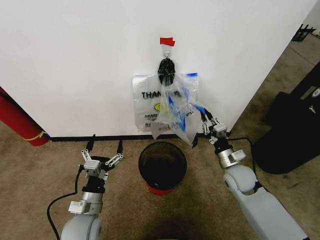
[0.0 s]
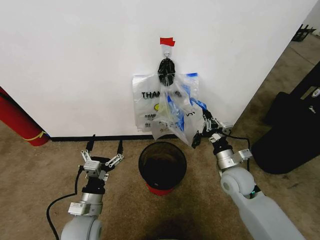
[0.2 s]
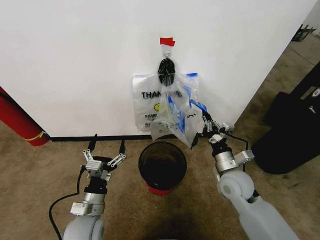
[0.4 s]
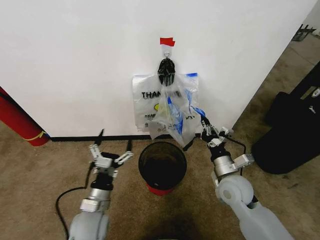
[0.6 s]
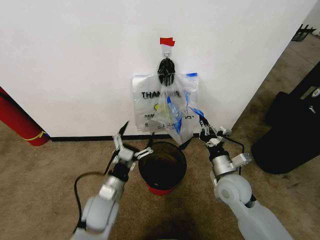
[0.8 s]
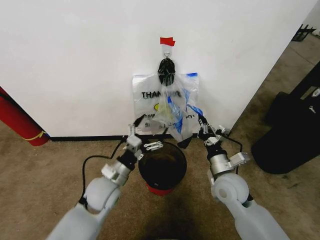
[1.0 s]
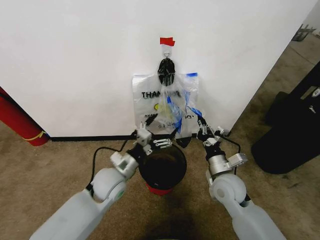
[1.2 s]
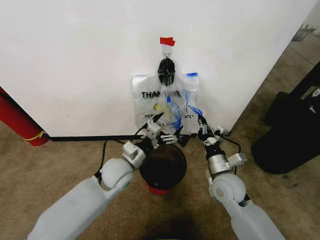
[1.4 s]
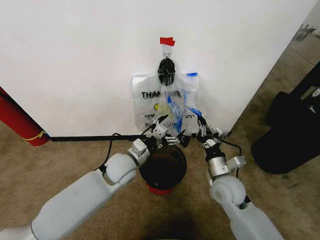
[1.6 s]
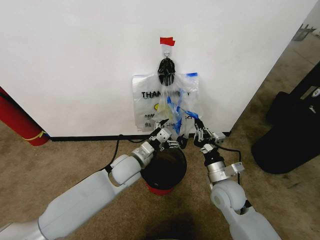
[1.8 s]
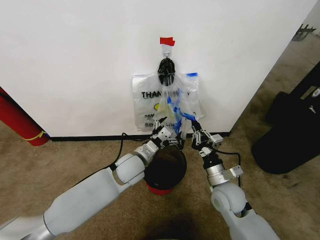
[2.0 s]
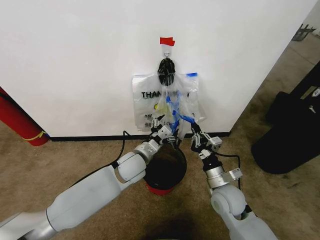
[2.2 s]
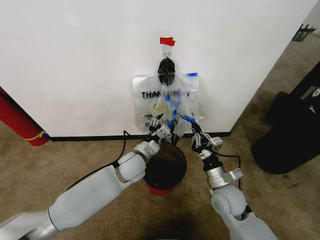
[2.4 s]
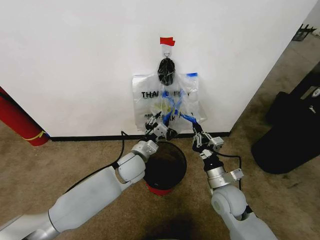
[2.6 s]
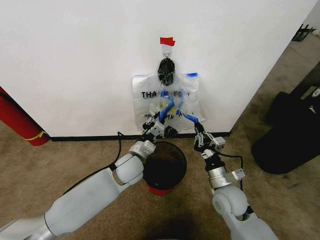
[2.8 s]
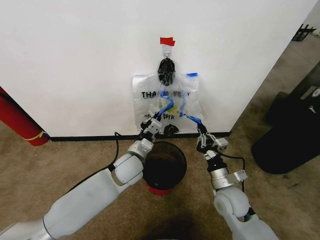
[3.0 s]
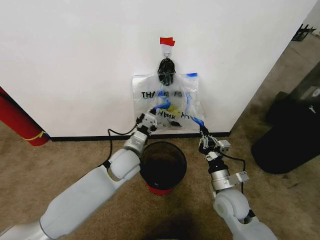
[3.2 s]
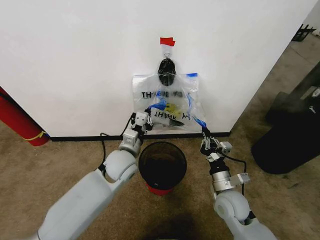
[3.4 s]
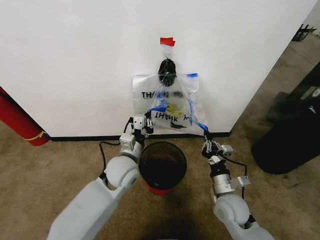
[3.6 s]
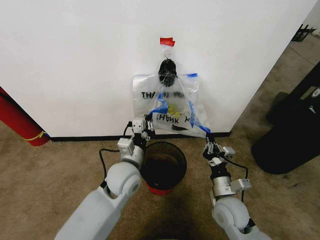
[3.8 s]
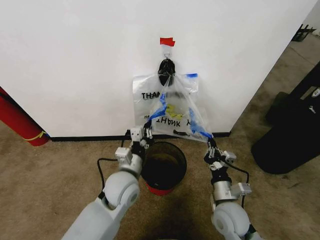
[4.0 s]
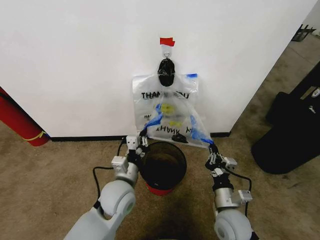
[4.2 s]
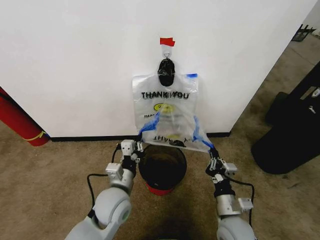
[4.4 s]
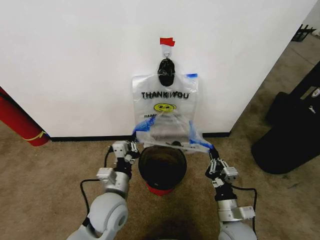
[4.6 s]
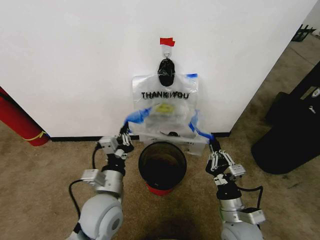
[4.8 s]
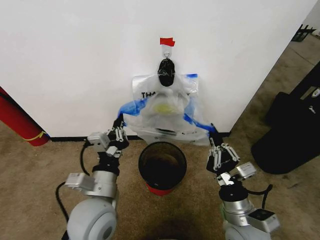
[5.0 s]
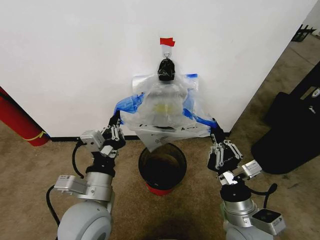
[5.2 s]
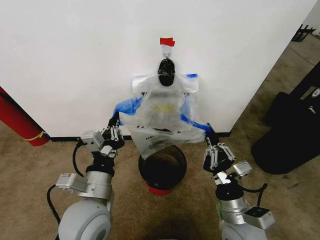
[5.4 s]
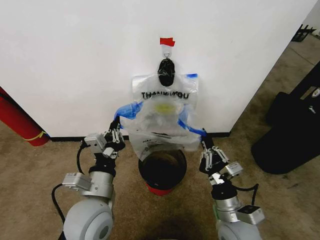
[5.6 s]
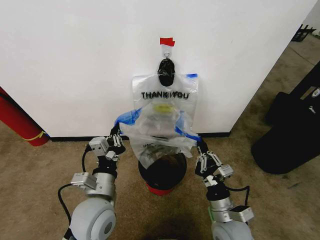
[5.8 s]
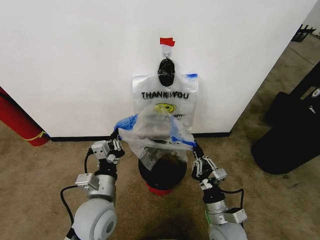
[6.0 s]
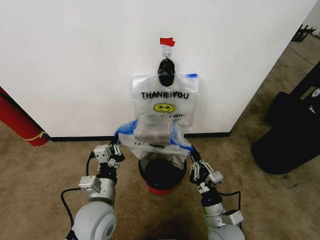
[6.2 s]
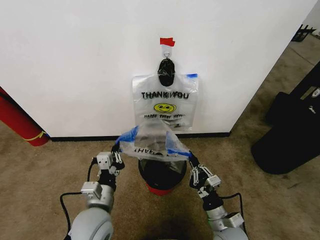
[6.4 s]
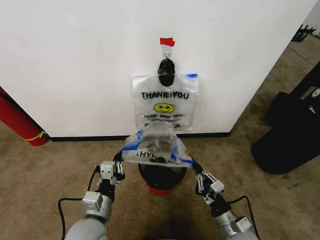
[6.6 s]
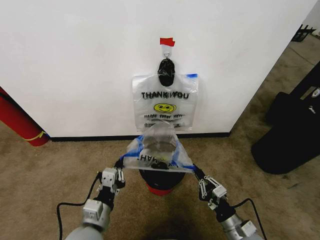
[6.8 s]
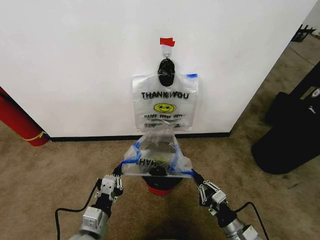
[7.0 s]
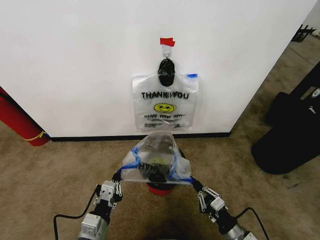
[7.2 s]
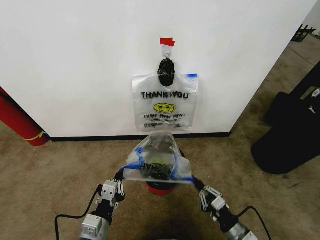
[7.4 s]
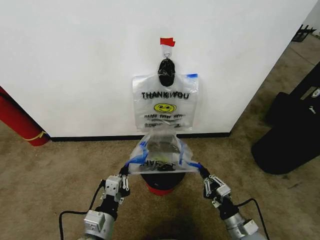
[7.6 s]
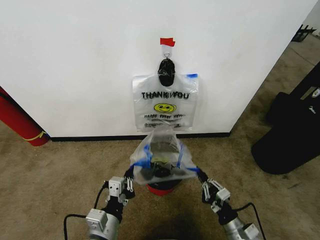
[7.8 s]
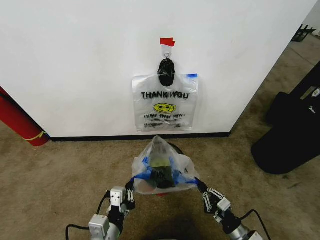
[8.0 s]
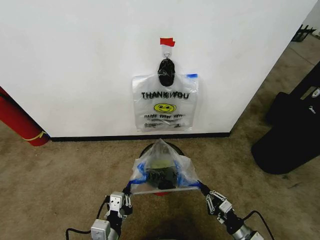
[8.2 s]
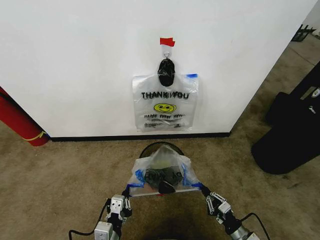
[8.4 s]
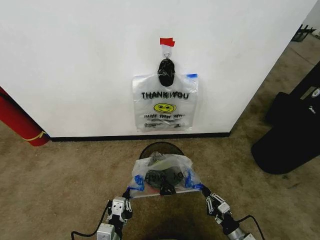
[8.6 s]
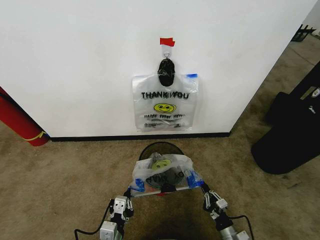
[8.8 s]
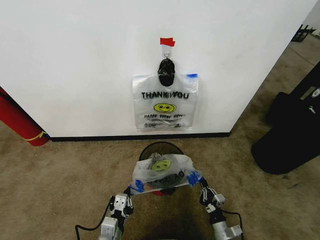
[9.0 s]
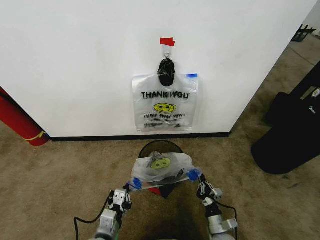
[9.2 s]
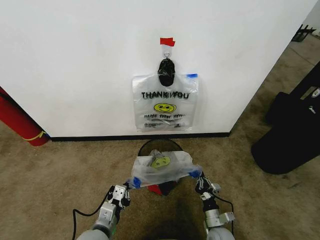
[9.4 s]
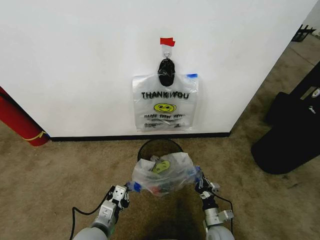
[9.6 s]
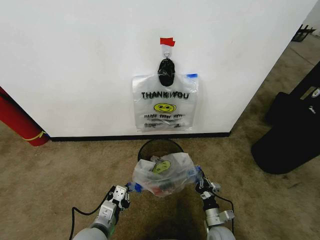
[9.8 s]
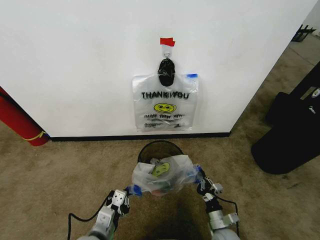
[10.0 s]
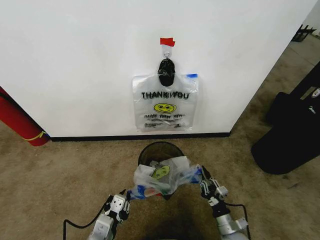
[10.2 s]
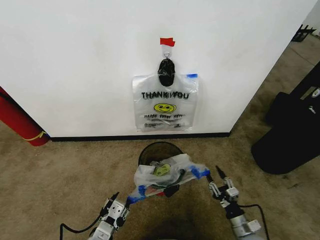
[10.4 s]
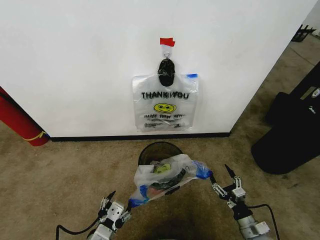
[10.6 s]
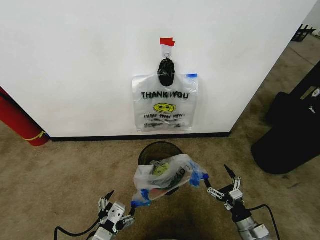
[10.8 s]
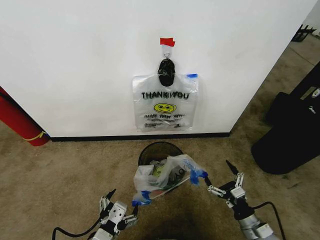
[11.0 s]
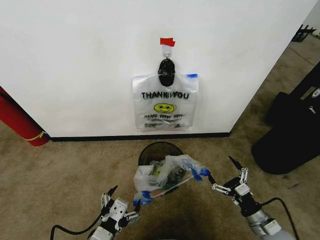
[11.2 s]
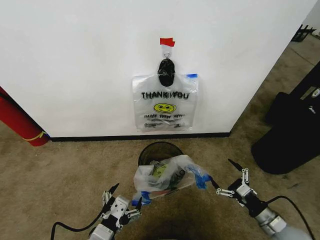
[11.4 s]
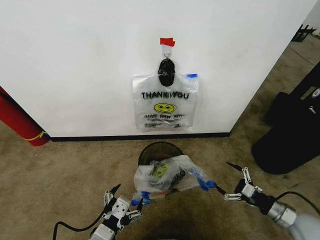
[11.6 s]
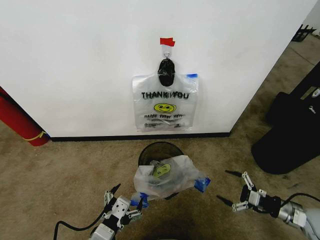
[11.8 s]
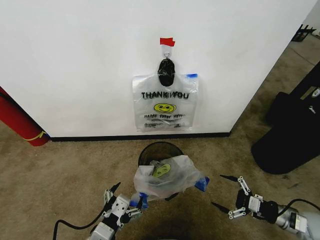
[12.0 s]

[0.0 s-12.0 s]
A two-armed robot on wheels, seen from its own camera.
Task of the whole recording: Pick up the garbage bag from the wall and place it over the trash bin.
0.0 to 1.6 s: The left gripper moves forward, to the right and upward, some 20 cm. Meanwhile the right gripper moves to the left, roughly 5 cm.
1.6 to 3.0 s: The left gripper closes.
3.0 to 4.4 s: The two grippers go roughly 10 cm backward.
4.4 to 6.0 s: The left gripper travels upward and back again, roughly 10 cm each way. The right gripper reaches some 10 cm upward, then returns.
6.0 to 7.6 s: The right gripper is displaced to the right and downward by some 10 cm. The left gripper goes about 10 cm backward and downward.
7.6 to 9.0 s: The right gripper is displaced downward by about 10 cm; the left gripper heads downward, covering about 5 cm.
9.0 to 10.4 s: The left gripper travels upward by roughly 5 cm, and opens; the right gripper is displaced to the right by about 5 cm, and opens.
10.4 to 12.0 s: The right gripper moves to the right and upward, approximately 20 cm, and opens its fingers. The left gripper changes place by some 5 cm, and opens its fingers.

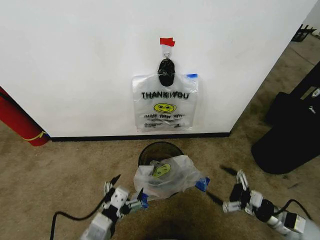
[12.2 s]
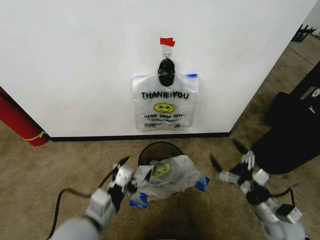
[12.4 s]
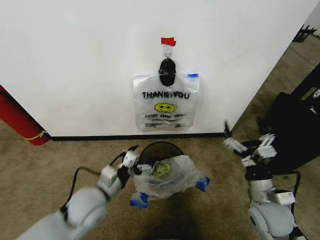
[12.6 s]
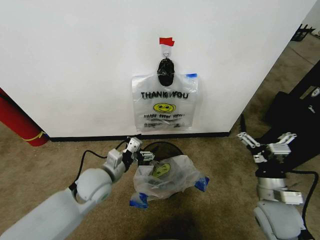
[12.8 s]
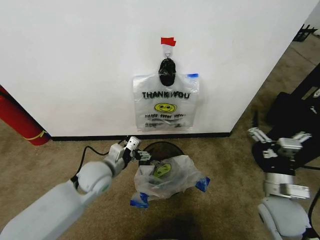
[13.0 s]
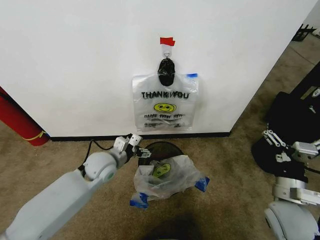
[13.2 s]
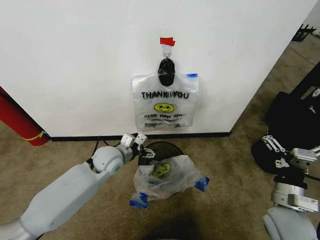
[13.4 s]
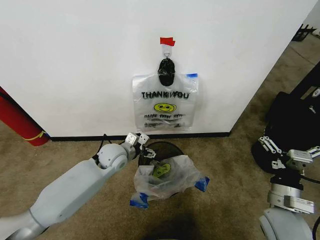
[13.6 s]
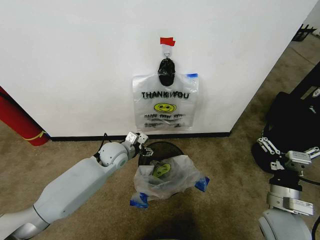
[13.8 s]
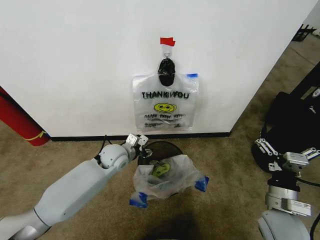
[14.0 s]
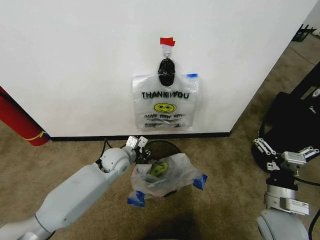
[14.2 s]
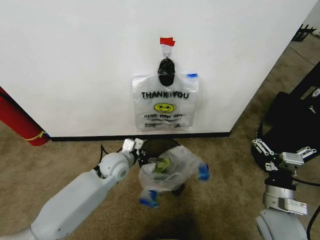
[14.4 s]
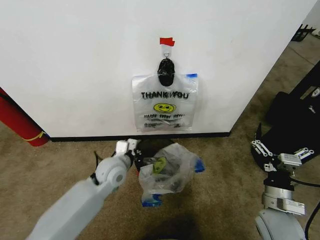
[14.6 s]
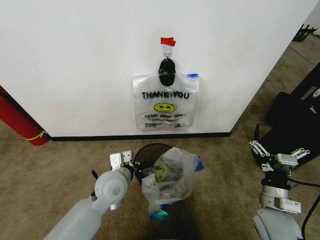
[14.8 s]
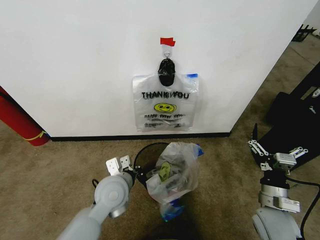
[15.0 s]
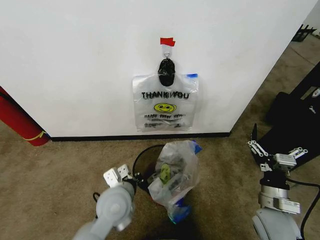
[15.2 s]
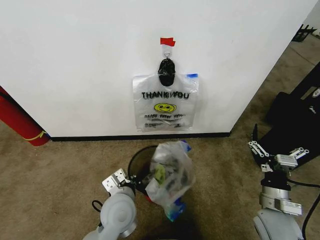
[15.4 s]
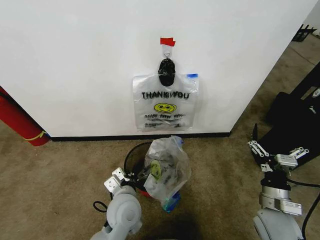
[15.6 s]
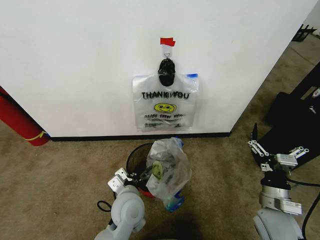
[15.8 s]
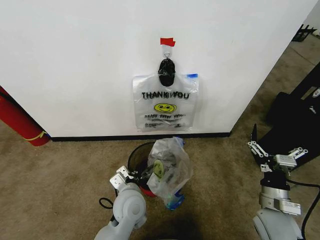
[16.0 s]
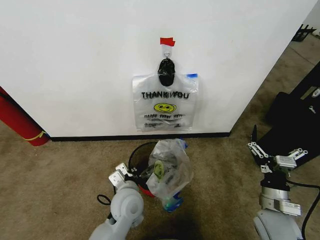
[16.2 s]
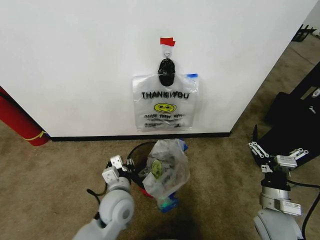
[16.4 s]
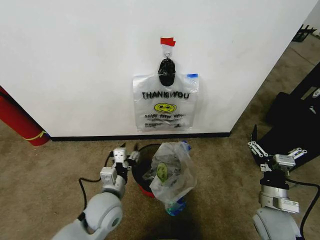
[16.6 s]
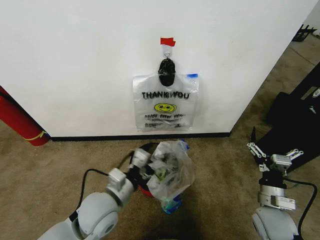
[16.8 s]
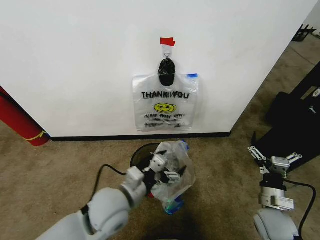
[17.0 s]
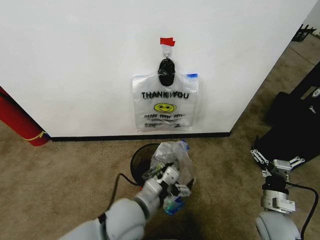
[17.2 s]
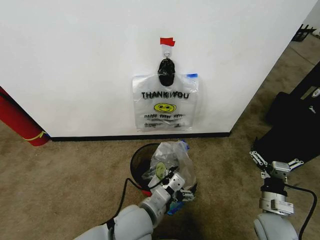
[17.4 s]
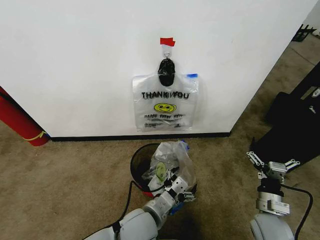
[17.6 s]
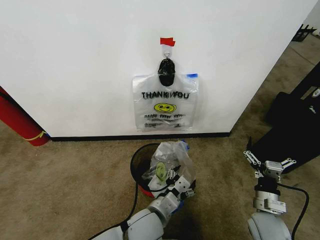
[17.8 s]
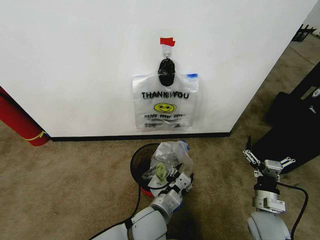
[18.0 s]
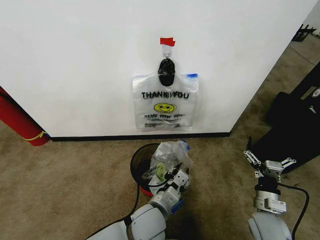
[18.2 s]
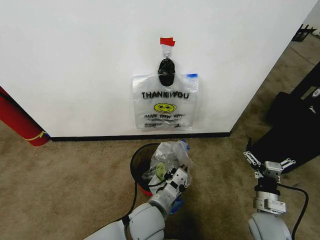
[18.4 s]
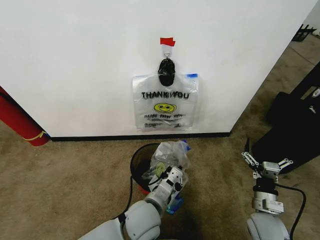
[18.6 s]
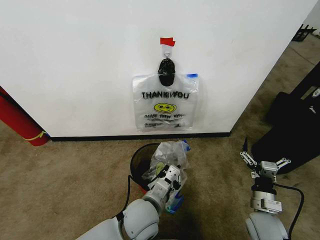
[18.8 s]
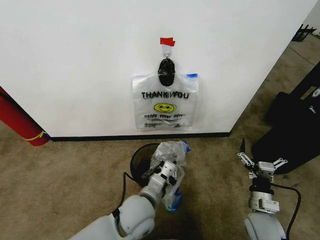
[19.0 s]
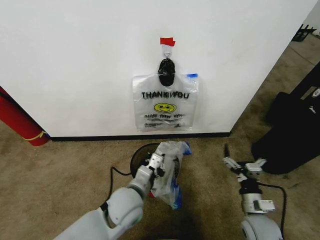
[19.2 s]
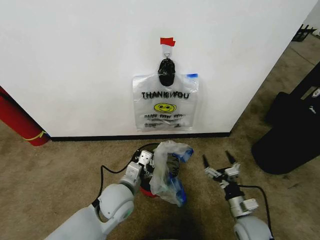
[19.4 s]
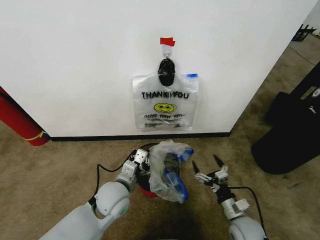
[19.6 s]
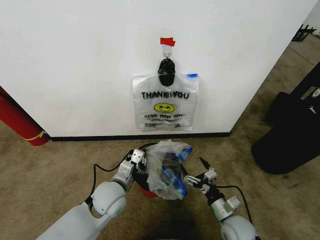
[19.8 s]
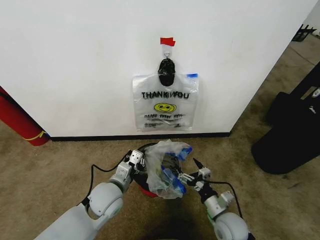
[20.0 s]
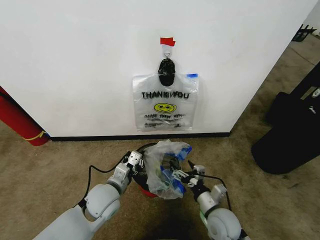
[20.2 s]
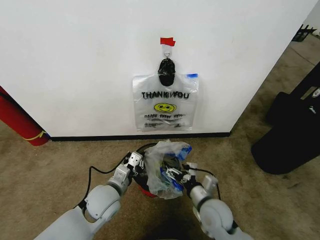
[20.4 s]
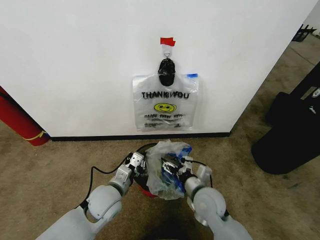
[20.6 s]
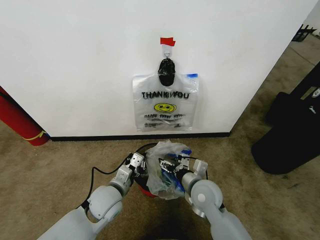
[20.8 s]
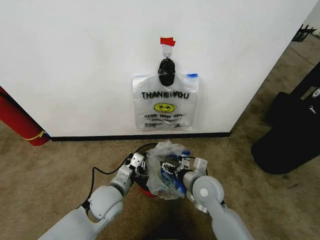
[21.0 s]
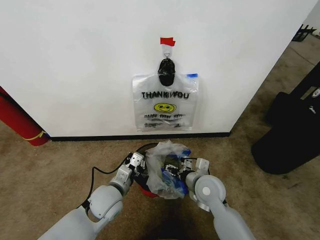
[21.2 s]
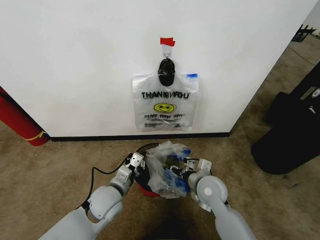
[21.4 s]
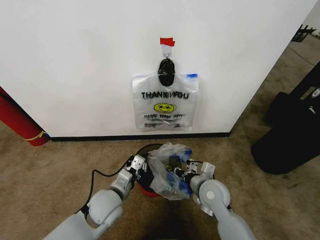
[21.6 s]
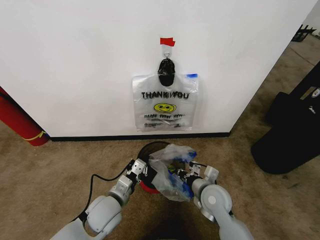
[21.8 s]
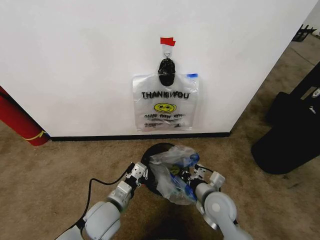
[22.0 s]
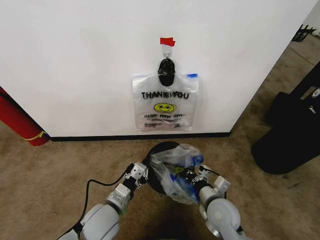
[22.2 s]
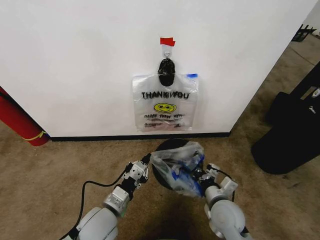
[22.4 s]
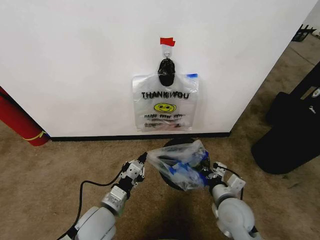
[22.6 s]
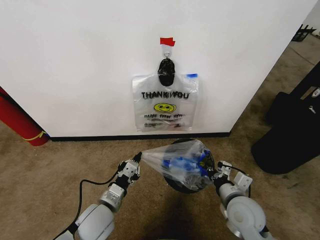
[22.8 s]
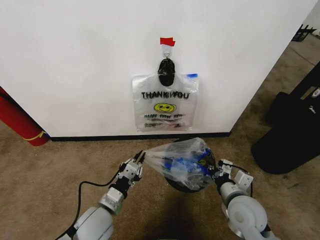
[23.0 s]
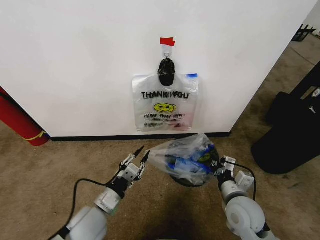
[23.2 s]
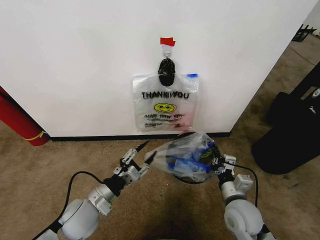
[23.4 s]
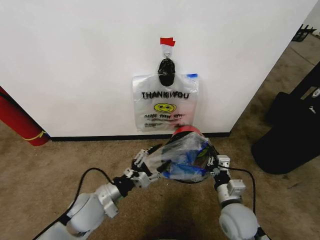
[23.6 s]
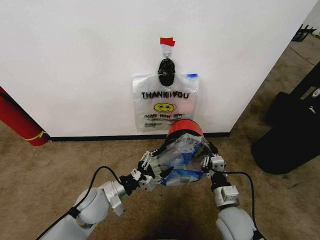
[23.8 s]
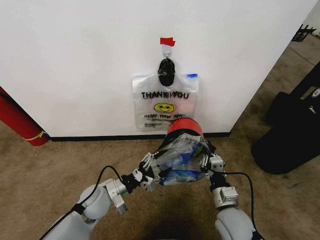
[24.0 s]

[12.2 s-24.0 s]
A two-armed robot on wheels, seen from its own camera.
Task of the whole recording: Pick up the garbage bag from the wall and place it over the trash bin.
12.2 to 13.6 s: The left gripper heads forward, covering approximately 30 cm, while the right gripper heads to the left and upward, covering approximately 15 cm.
13.6 to 15.2 s: The left gripper shifts about 15 cm backward, and closes.
15.2 to 16.6 s: The left gripper opens up.
16.6 to 18.2 s: The left gripper moves to the right, about 15 cm, and opens, then closes again.
18.2 to 19.6 s: The left gripper heads to the left and forward, covering approximately 15 cm, and closes. Meanwhile the right gripper goes roughly 5 cm downward.
19.6 to 21.0 s: The right gripper heads to the left, upward and forward, covering about 20 cm.
21.0 to 22.6 s: The left gripper travels backward by some 5 cm. Meanwhile the right gripper shifts roughly 10 cm to the right and backward, and closes up.
22.6 to 24.0 s: The left gripper travels forward by some 10 cm, and opens up.
